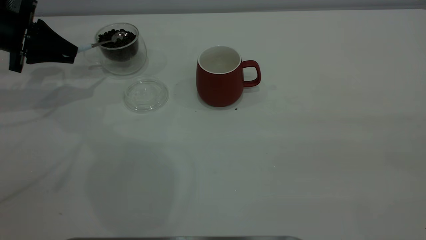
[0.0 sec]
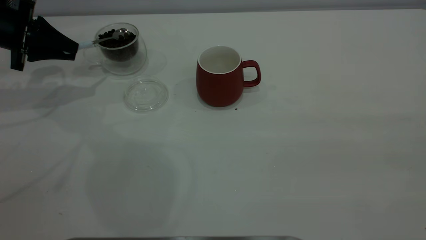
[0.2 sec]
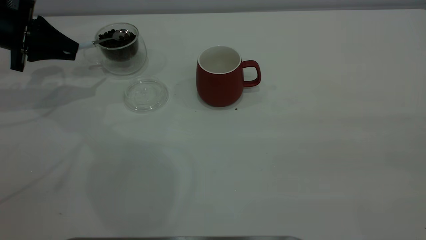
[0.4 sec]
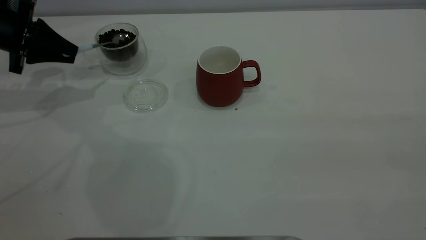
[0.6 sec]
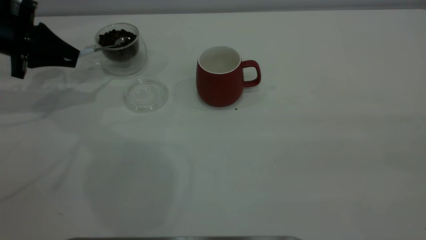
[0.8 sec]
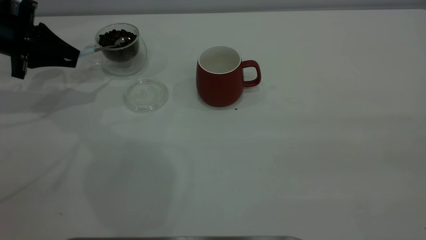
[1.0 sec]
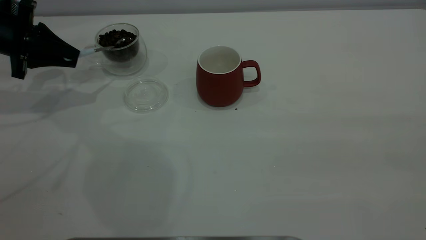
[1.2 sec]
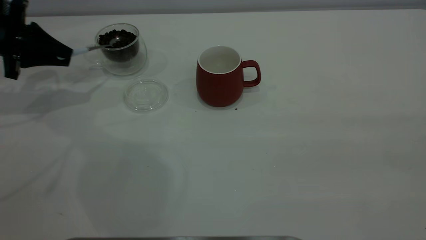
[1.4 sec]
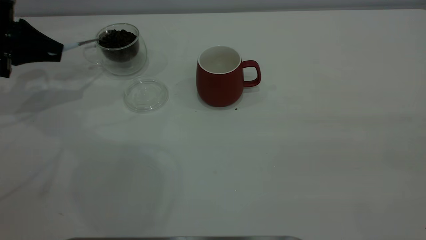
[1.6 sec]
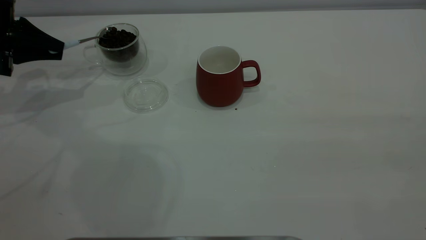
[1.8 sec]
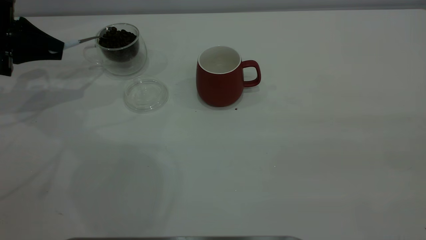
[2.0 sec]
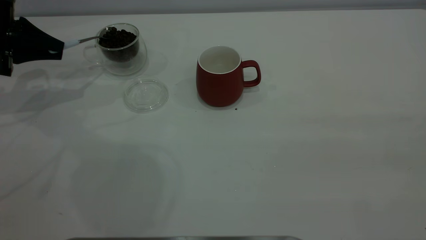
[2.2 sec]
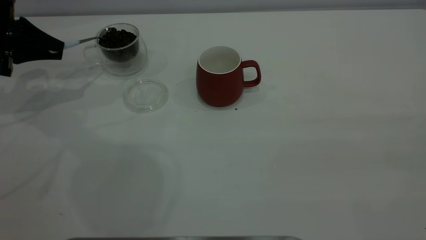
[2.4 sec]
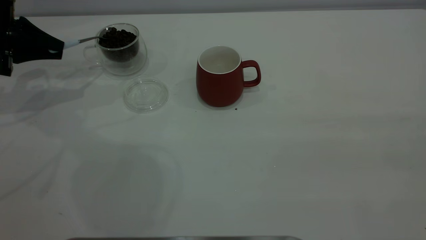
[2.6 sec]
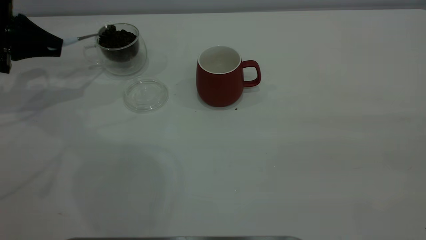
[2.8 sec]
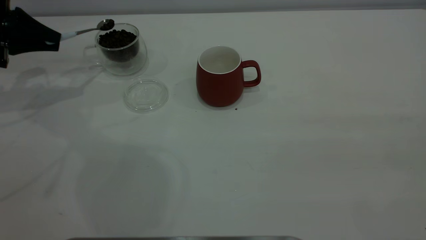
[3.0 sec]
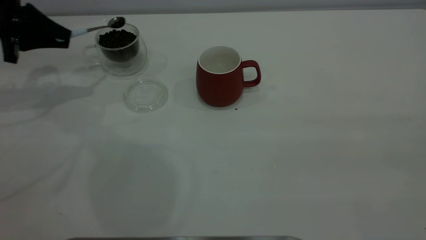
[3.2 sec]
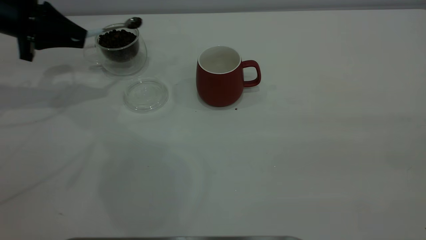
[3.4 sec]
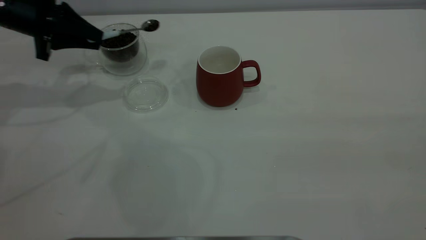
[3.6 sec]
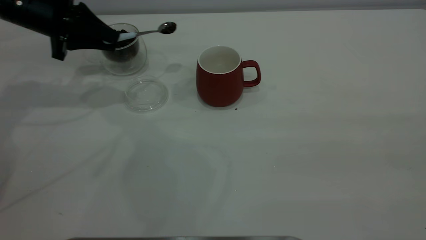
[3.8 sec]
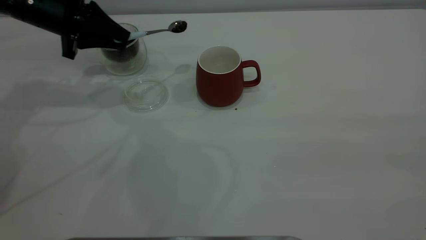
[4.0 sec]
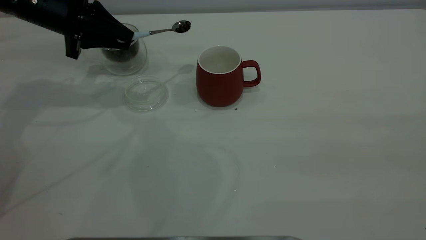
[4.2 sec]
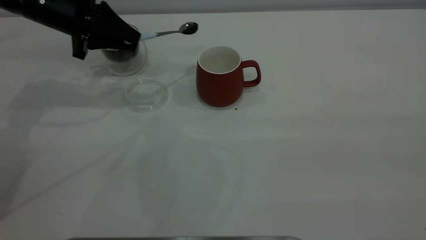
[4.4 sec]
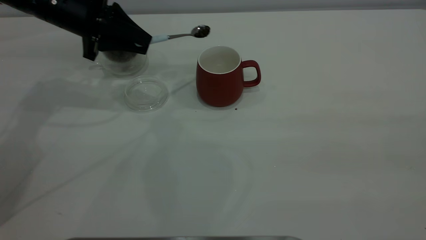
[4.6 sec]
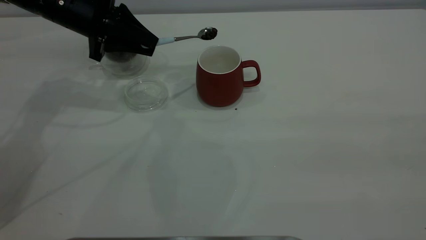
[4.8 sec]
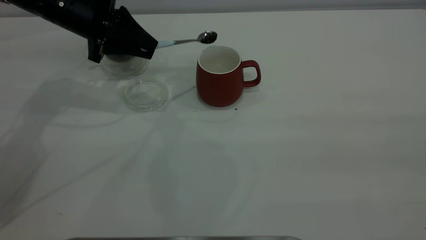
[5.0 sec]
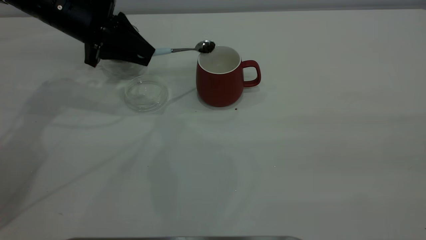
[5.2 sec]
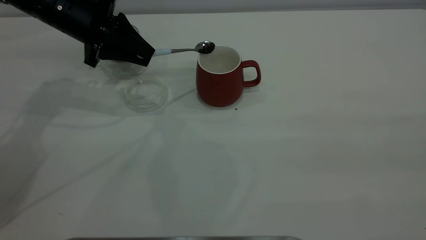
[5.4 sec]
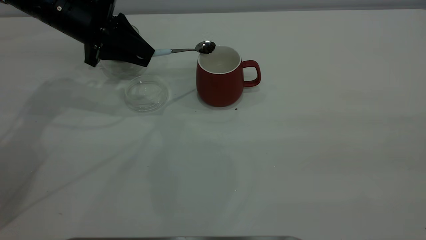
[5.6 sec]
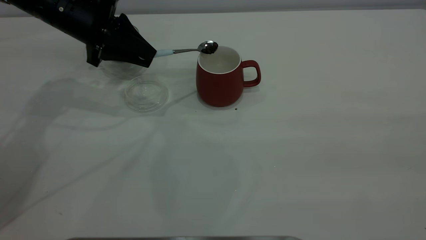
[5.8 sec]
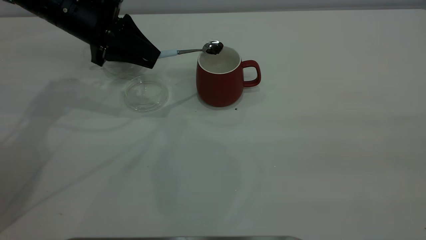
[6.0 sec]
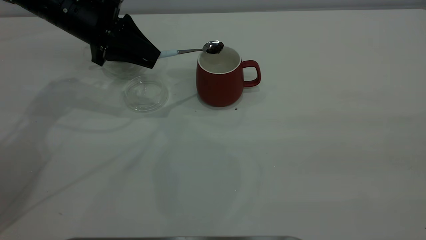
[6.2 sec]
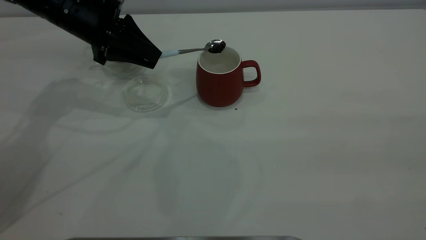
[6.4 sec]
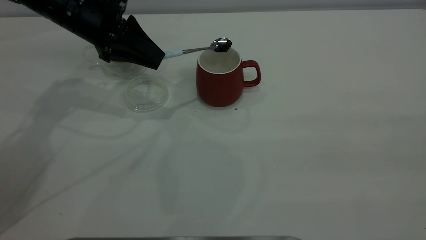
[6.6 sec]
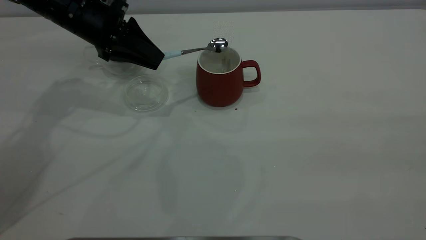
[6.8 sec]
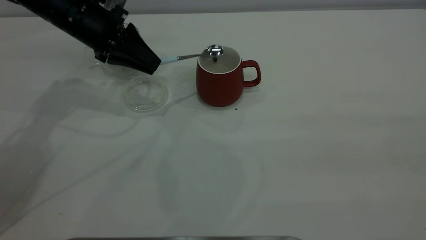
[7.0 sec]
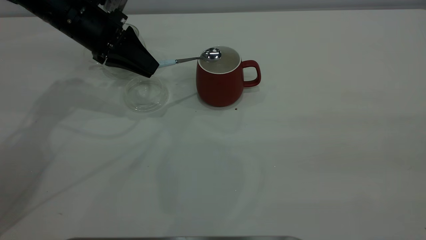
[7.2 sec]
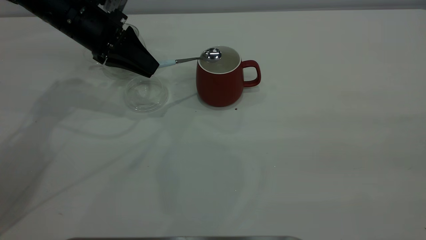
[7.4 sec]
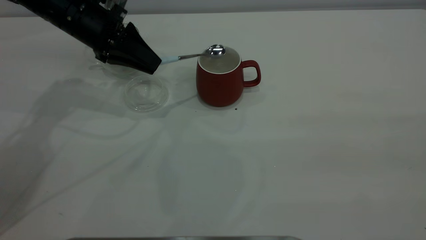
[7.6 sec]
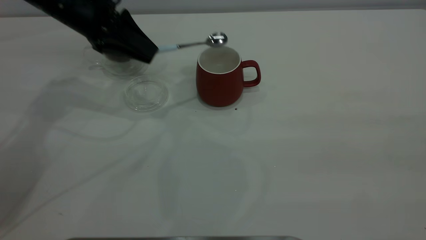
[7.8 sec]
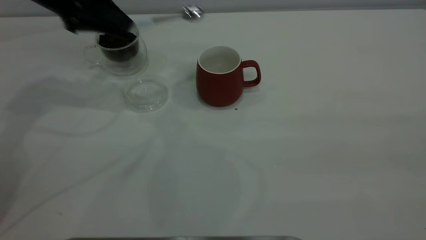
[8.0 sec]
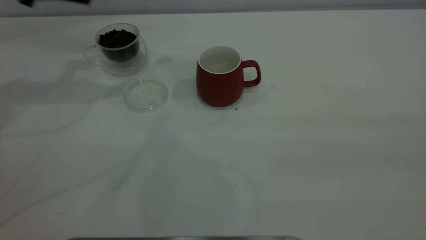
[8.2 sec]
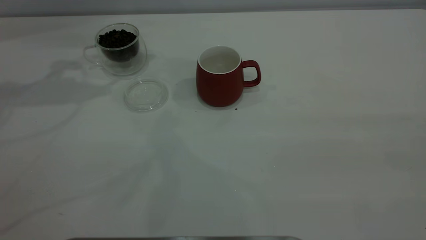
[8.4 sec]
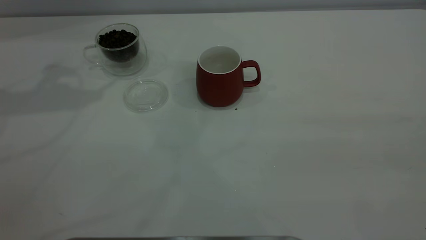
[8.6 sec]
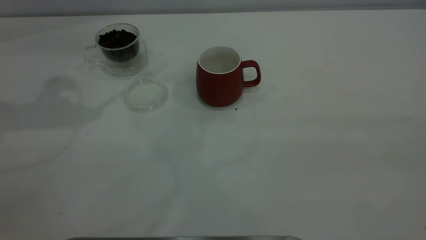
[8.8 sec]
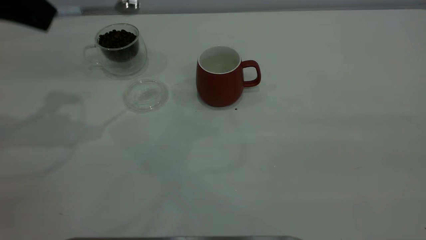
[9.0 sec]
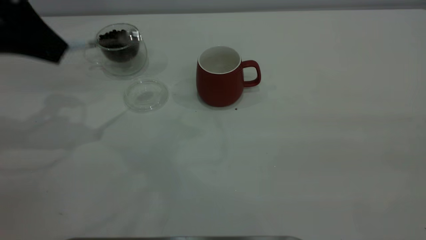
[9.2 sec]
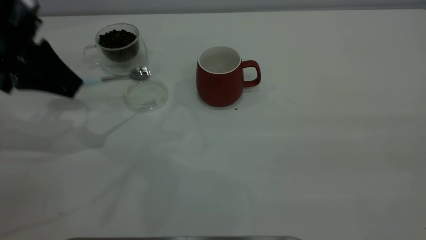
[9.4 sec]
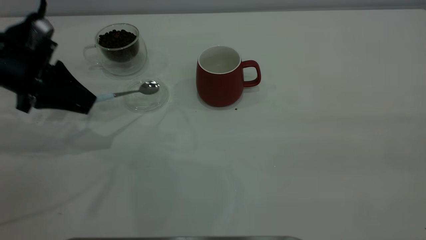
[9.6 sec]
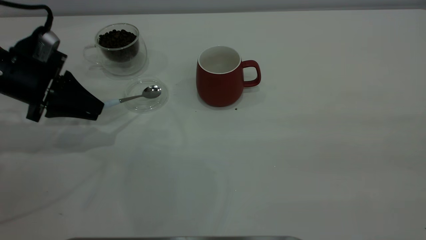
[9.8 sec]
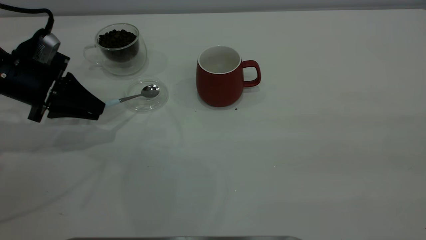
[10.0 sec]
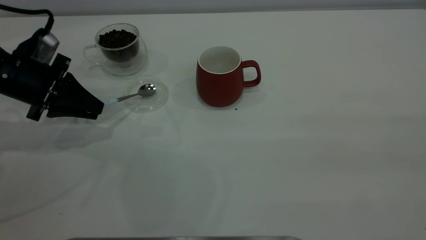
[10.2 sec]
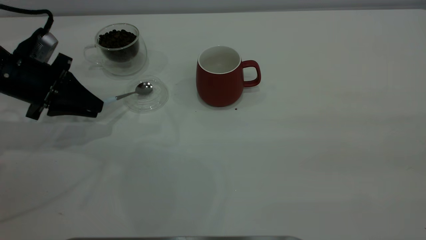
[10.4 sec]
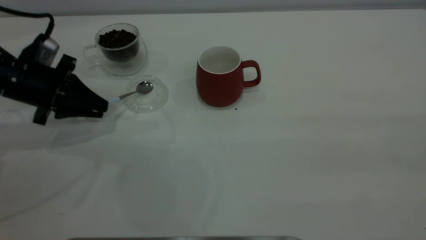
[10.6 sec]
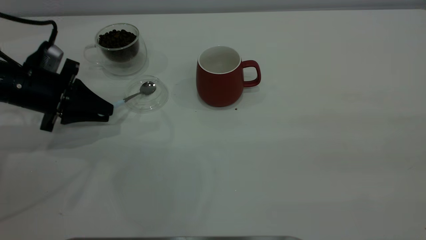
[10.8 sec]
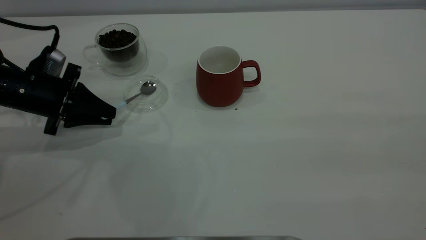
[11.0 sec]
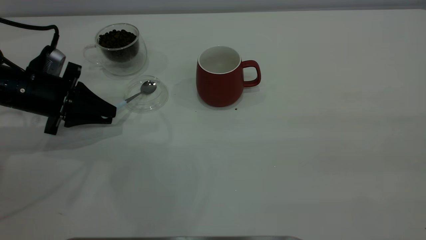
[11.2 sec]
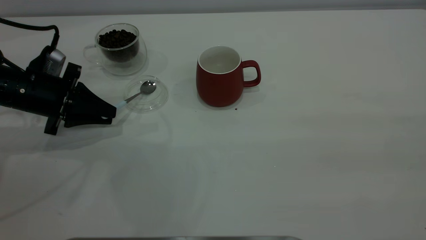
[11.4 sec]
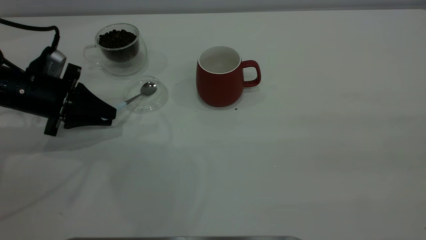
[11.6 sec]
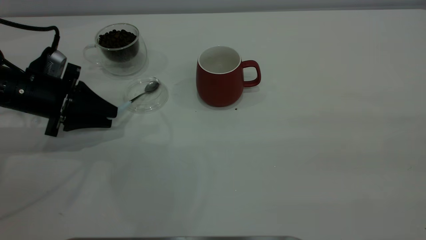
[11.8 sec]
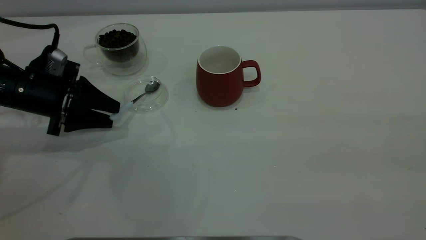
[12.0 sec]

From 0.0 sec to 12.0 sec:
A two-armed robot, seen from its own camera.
Task of the whole recording: the right gripper place the red cup in the center of the table, the left gripper take the blue spoon from the cup lid and scoop out the coffee beans from the coffee cup and put them into the red cup, the left gripper put the spoon back into the cup lid.
Step, from 0.0 sec to 7.8 sec: Scoop a spoonful of beans into the cup.
From 0.0 sec to 3.0 sec: There are only small adjustments of the grippers.
From 3.0 sec to 4.4 sec: The left gripper heads to the right, covering some 15 cm.
From 4.4 sec to 6.0 sec: The grippers move only a little.
From 6.0 sec to 7.6 sec: The grippers make only small movements.
From 7.6 sec to 9.0 sec: The left gripper heads upward, to the left and backward, covering about 15 cm.
From 9.0 sec to 10.4 sec: The left gripper travels downward by about 15 cm.
From 10.4 sec to 12.0 sec: The left gripper opens.

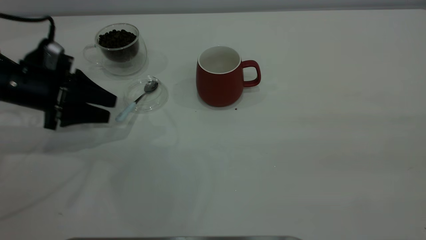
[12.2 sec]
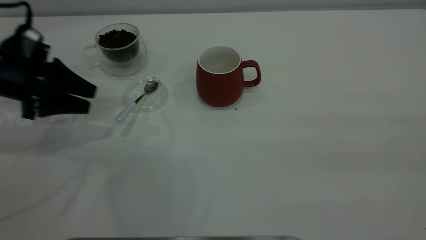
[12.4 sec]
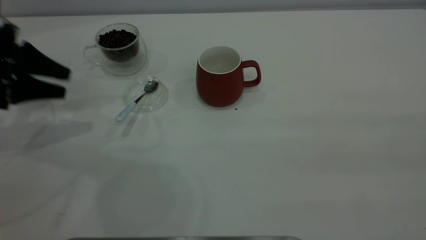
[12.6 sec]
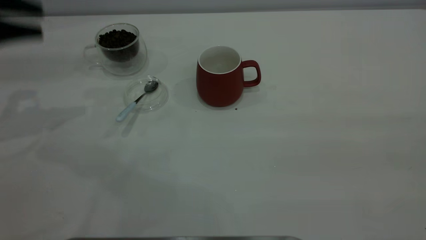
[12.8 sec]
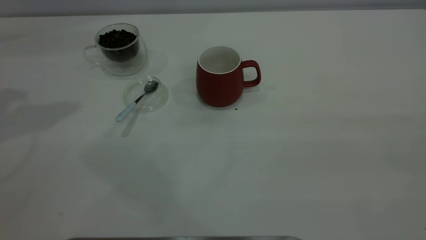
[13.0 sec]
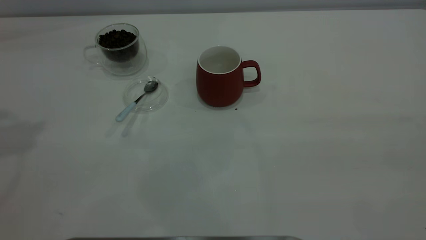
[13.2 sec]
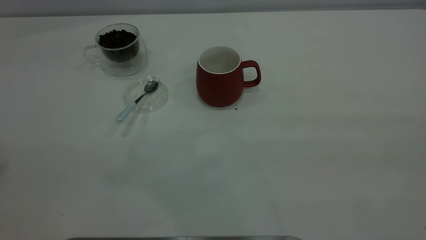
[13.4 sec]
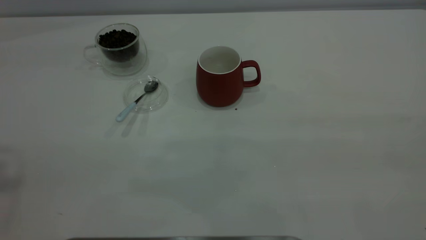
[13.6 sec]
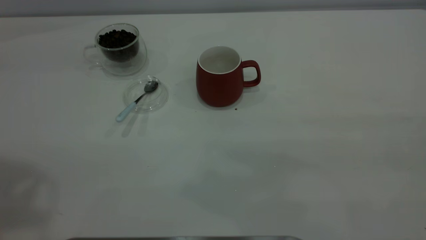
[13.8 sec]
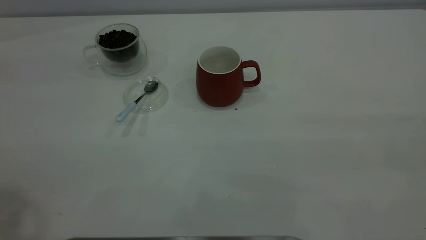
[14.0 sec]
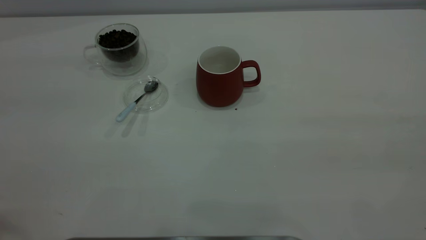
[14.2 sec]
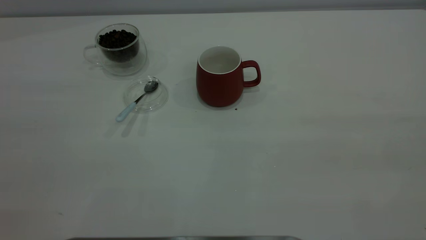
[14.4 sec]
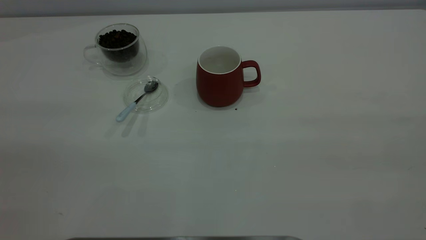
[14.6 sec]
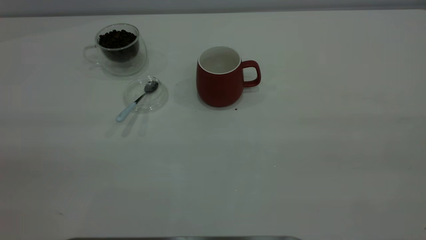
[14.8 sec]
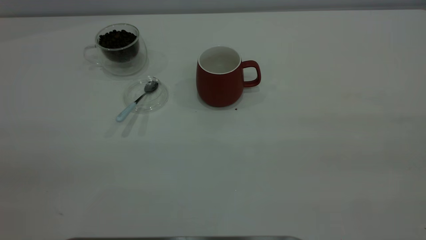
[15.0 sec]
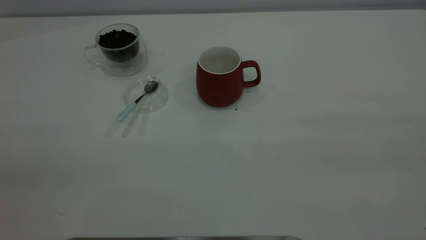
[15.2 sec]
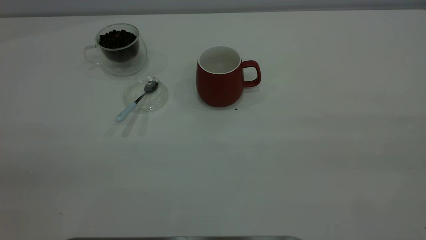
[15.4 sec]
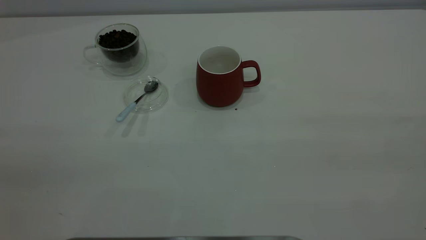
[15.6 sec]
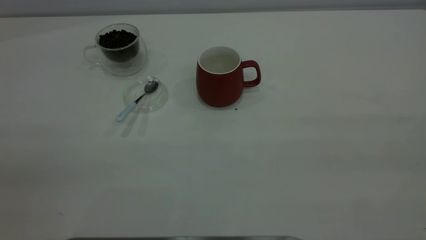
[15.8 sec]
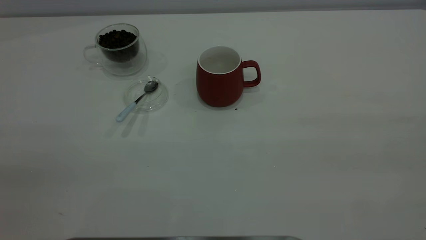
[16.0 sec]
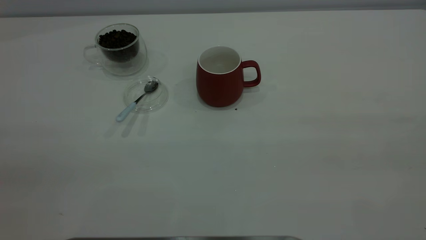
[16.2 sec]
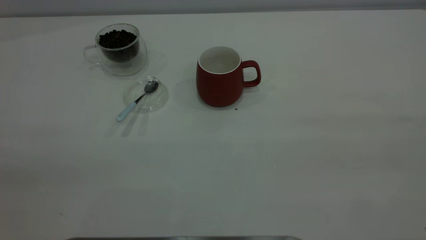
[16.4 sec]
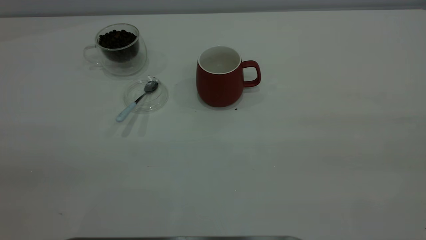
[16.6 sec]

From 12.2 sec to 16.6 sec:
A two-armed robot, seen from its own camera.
Task of the whole recording: the right gripper place the red cup in the center of the table, the left gripper take the blue spoon from the cup lid and scoop out the coffee beans from the coffee cup and put them into the red cup, the left gripper put the spoon back into the cup lid.
From 12.2 sec to 13.6 sec: The left gripper shifts about 40 cm upward.
From 15.2 sec to 16.6 sec: The two grippers keep their place.
